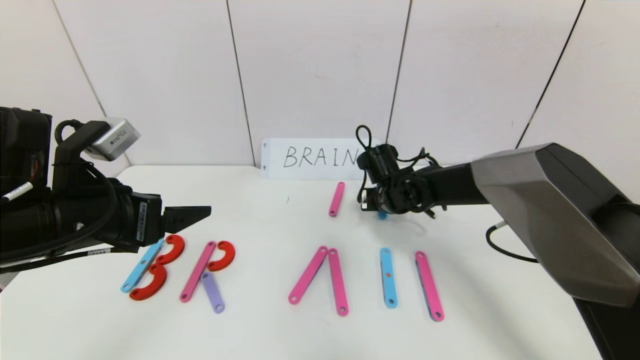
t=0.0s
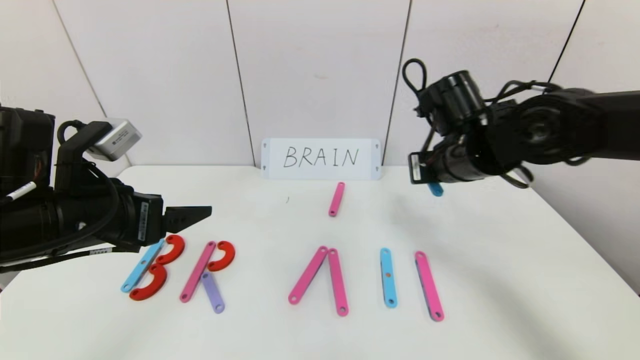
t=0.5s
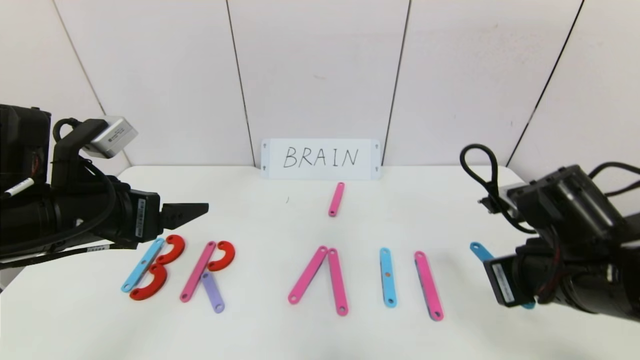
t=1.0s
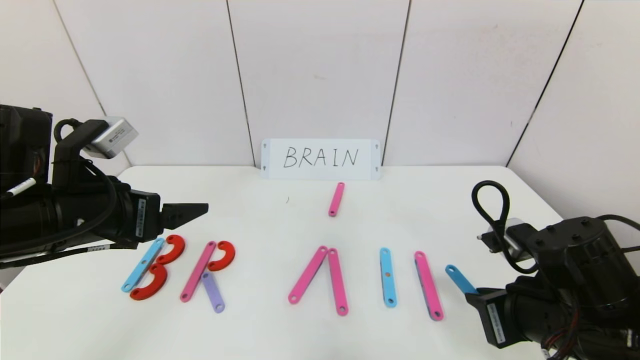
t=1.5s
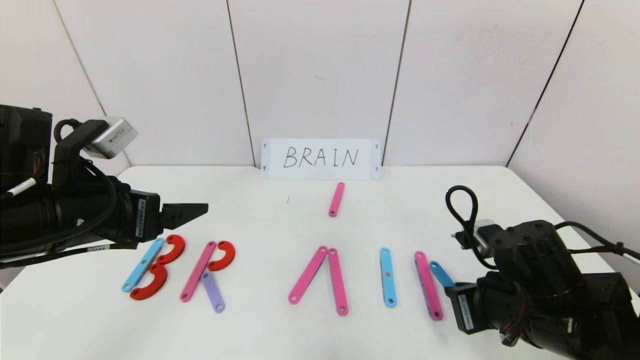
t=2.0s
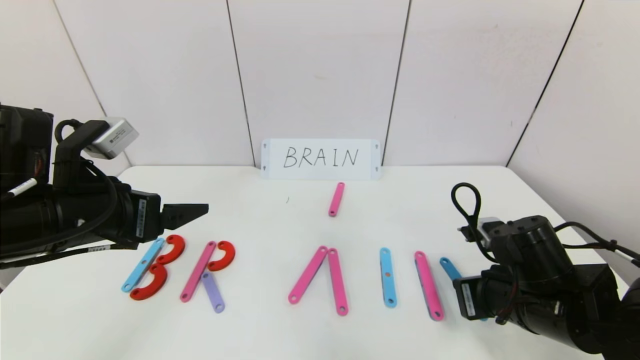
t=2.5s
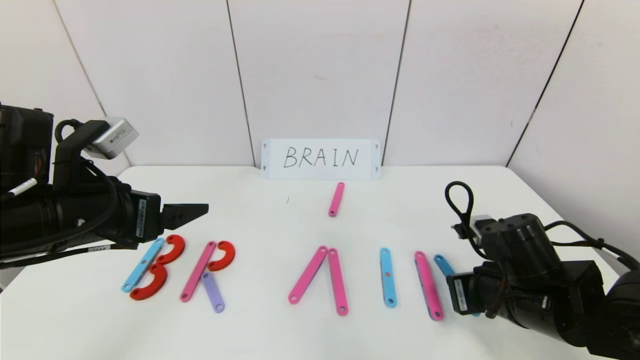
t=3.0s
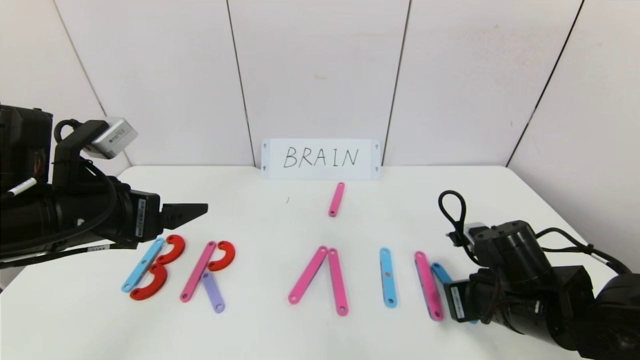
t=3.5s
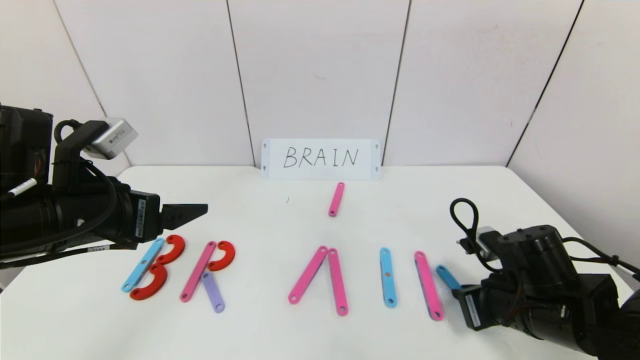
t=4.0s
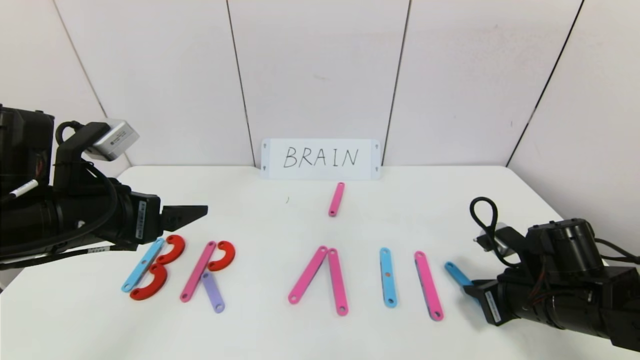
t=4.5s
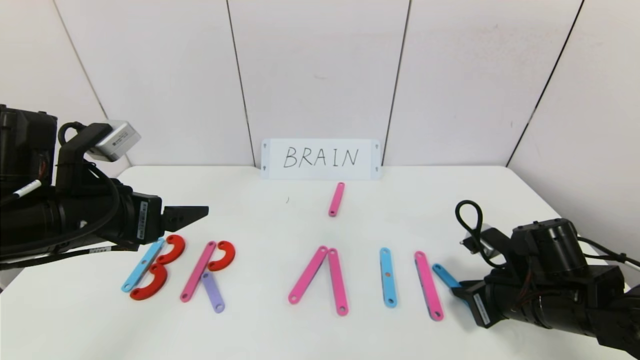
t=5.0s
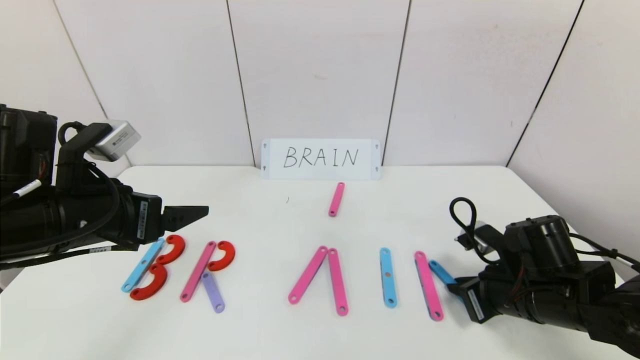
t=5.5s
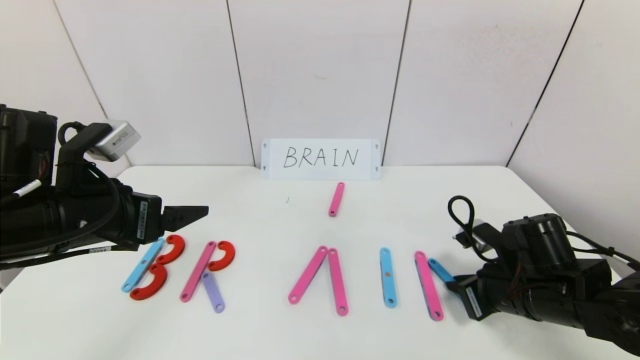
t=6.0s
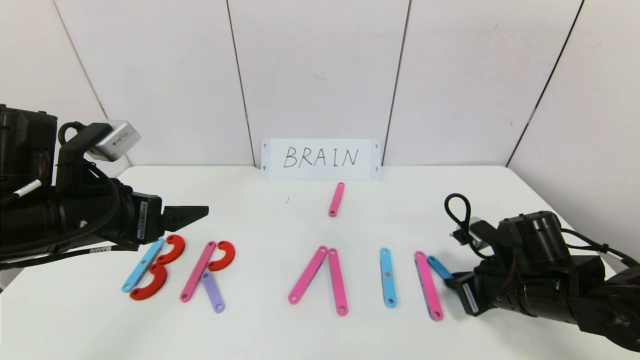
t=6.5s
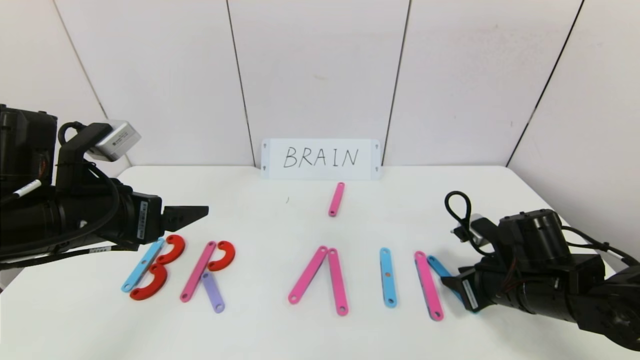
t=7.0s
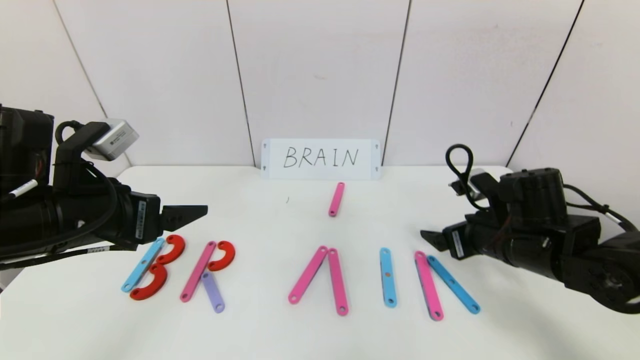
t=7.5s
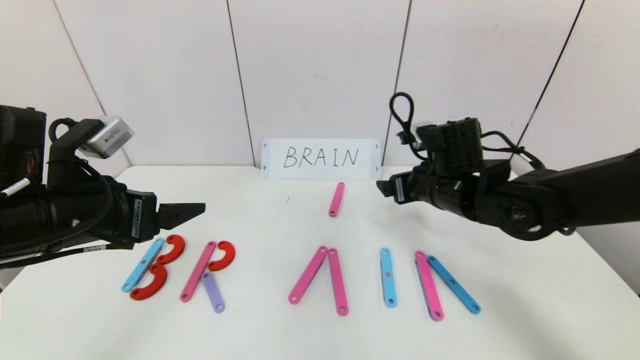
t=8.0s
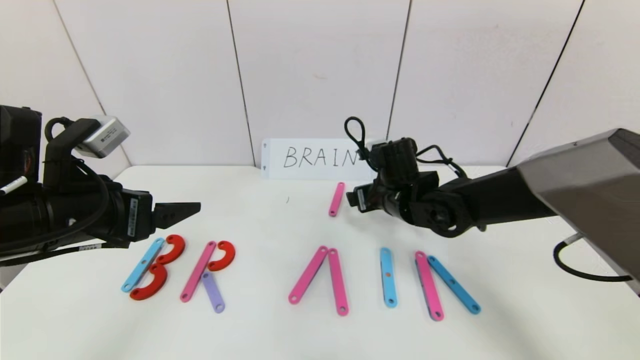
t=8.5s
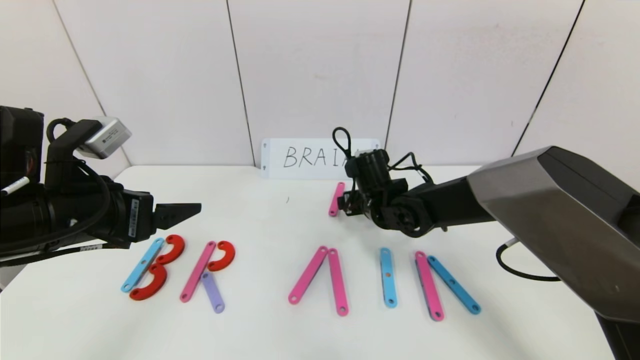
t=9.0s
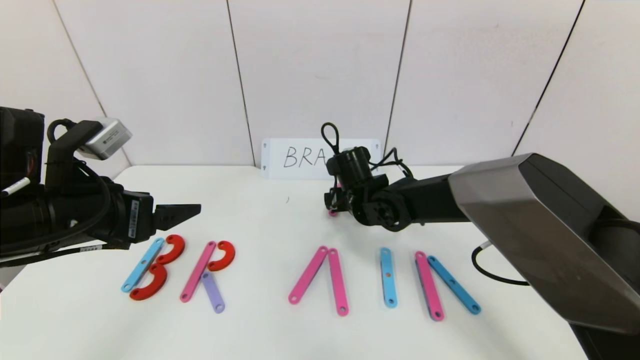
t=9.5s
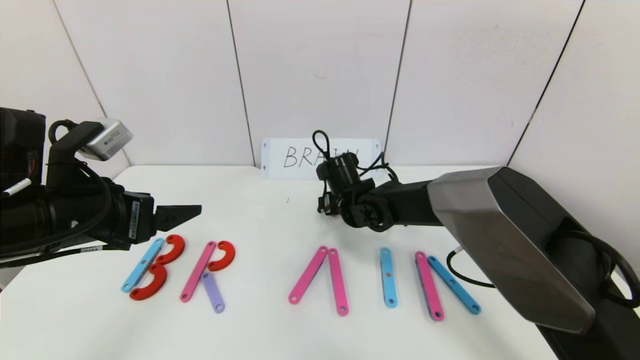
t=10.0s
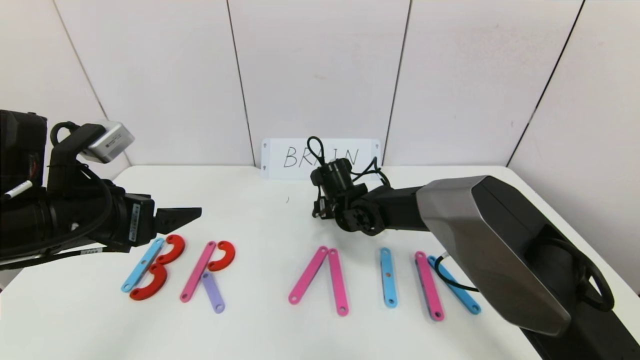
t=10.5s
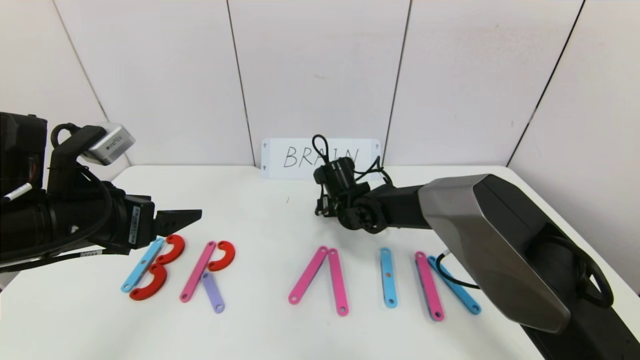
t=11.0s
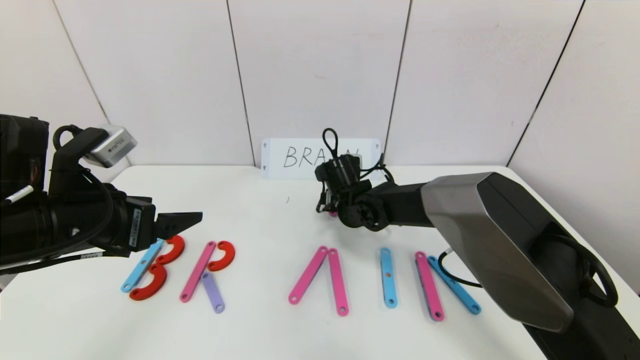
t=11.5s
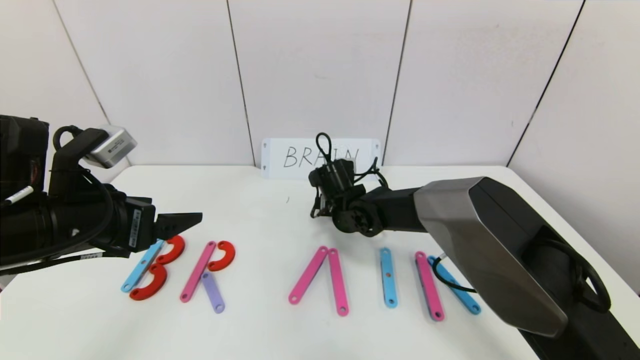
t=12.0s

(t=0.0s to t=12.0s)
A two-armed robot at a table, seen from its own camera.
Task of the whole recording: rearrange the word baai as brain.
t=0.0s - t=2.0s: The right gripper heads backward and to the right, covering roughly 25 cm.
t=2.0s - t=4.0s: The grippers make only small movements.
t=4.0s - t=6.0s: The grippers stay close to where they were, moving slightly.
t=6.0s - t=8.0s: The right gripper travels forward, to the left and upward by roughly 15 cm, and opens up.
t=8.0s - t=10.0s: The right gripper is displaced to the left, downward and forward by some 15 cm.
t=10.0s - t=12.0s: The grippers move only a little.

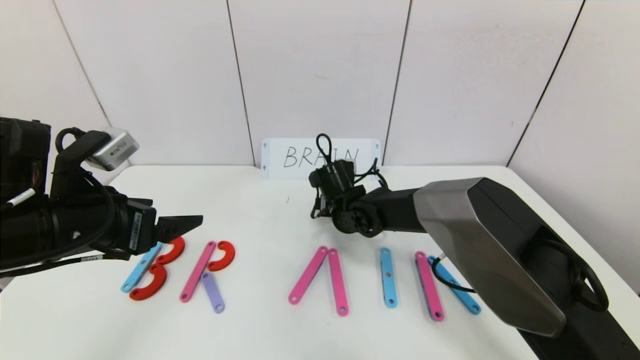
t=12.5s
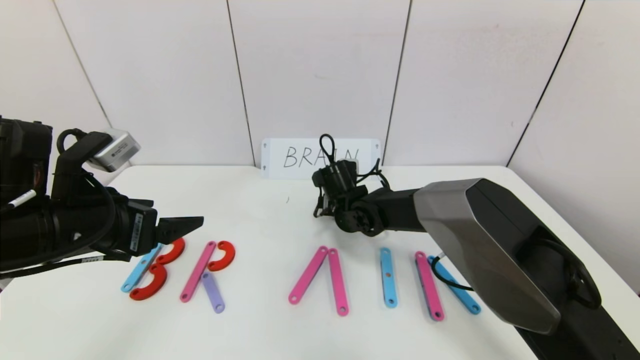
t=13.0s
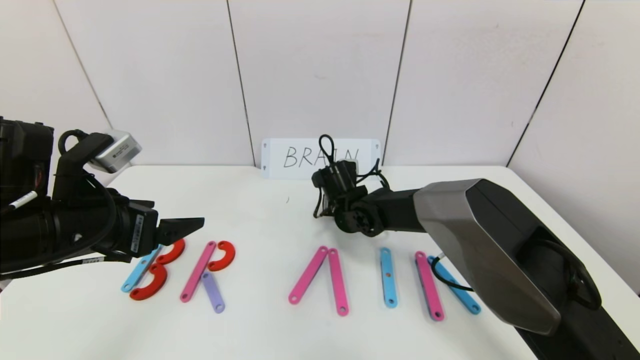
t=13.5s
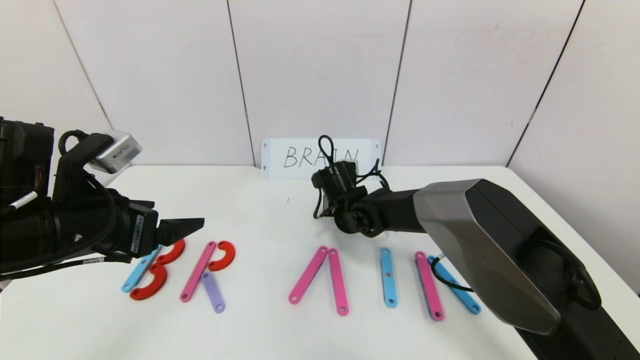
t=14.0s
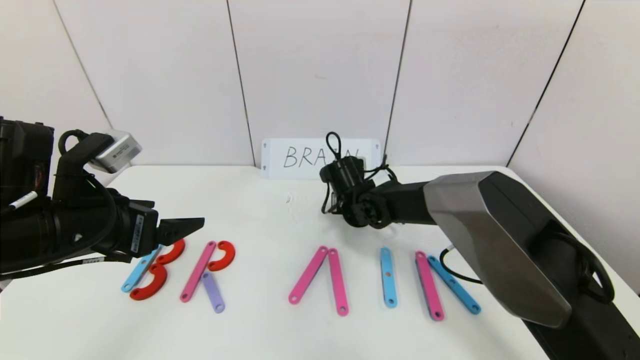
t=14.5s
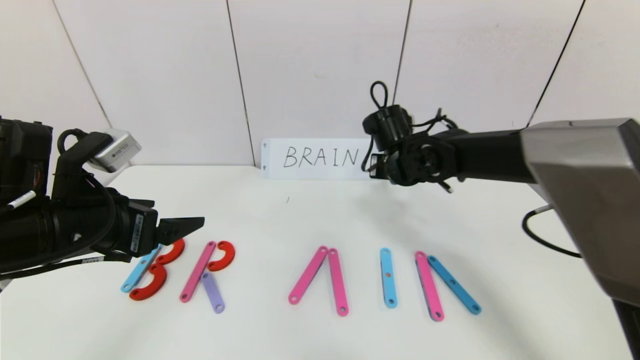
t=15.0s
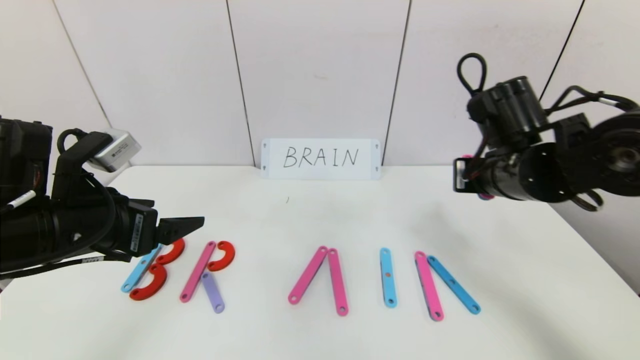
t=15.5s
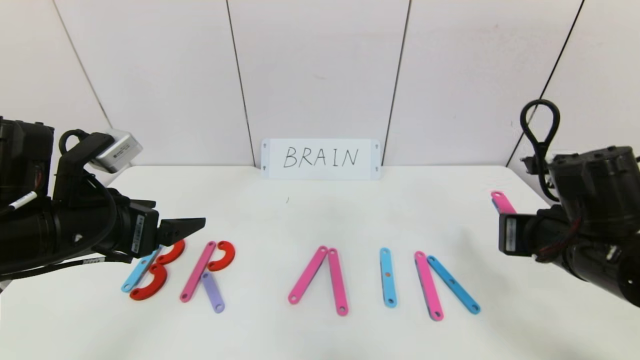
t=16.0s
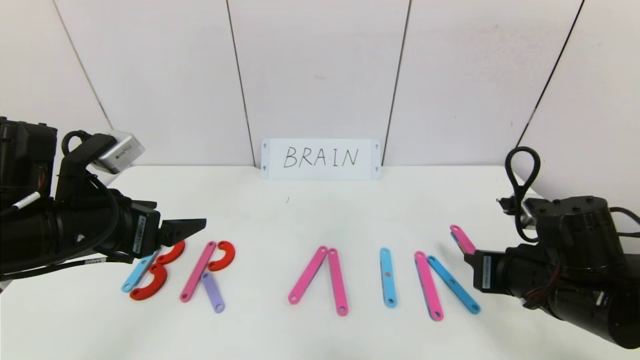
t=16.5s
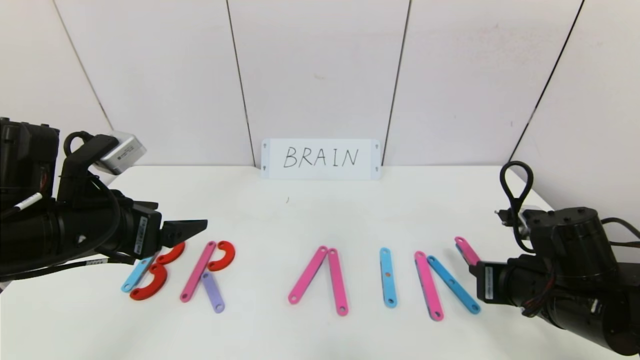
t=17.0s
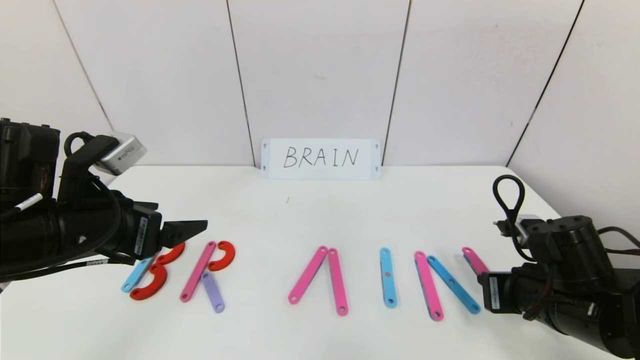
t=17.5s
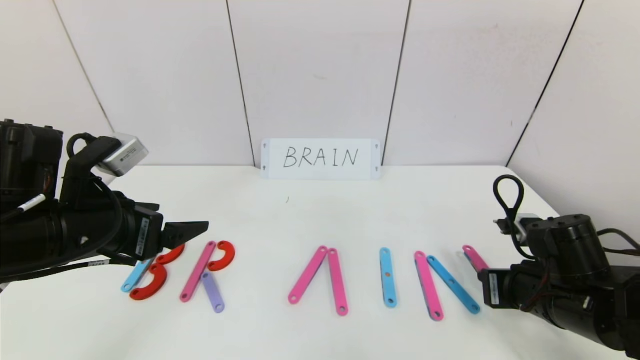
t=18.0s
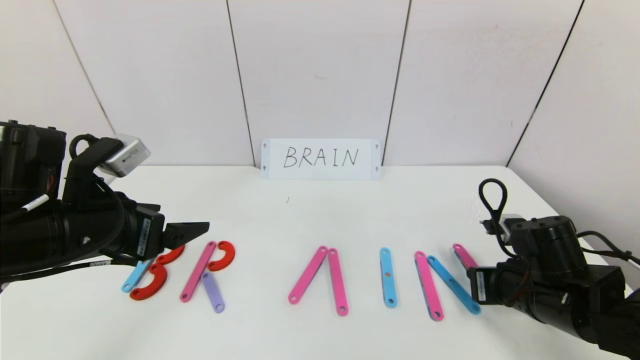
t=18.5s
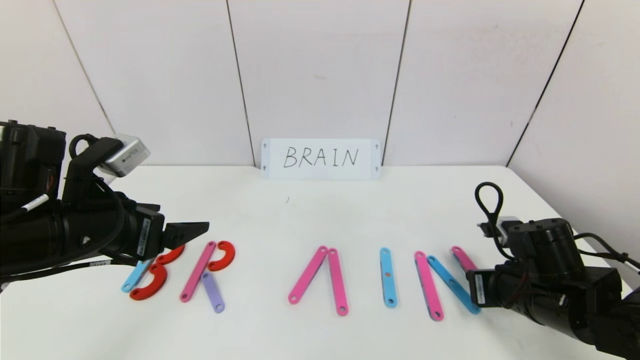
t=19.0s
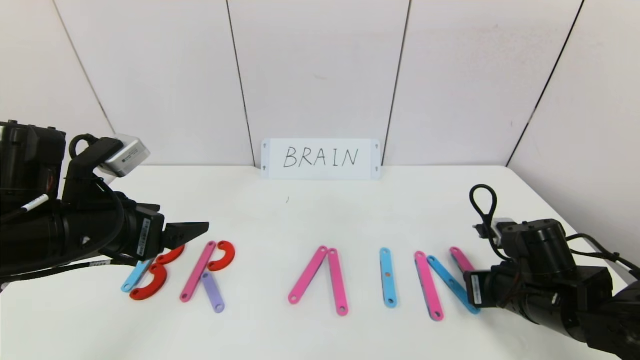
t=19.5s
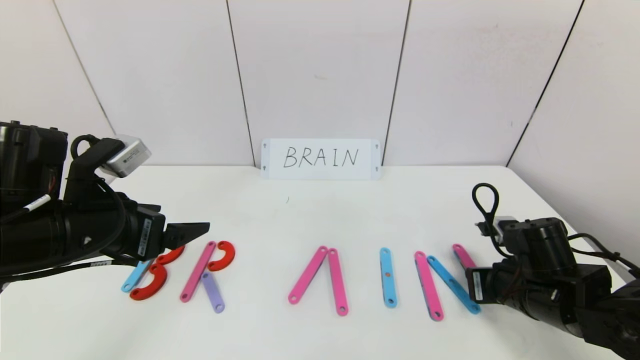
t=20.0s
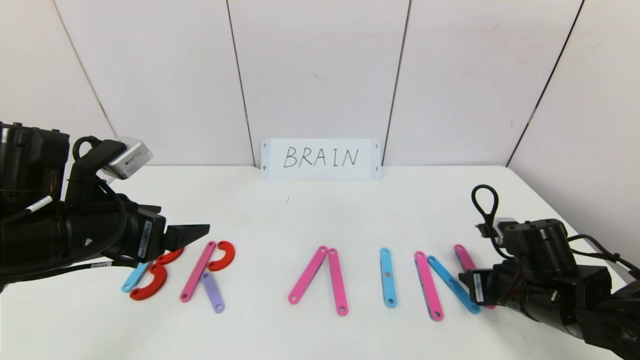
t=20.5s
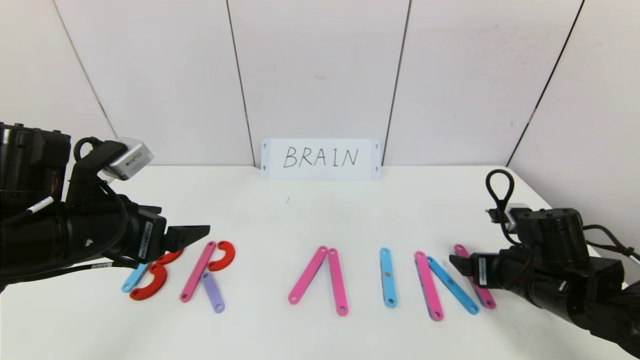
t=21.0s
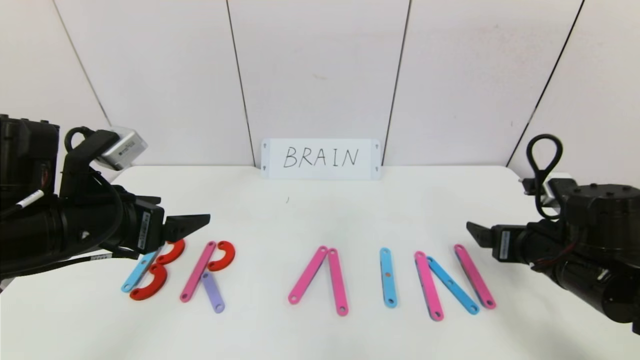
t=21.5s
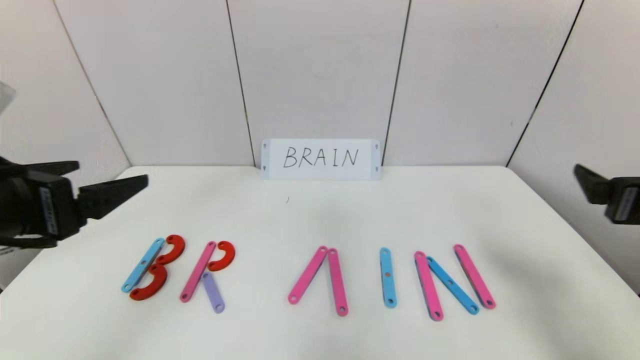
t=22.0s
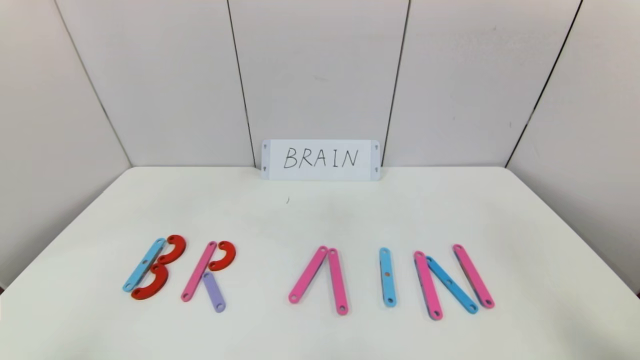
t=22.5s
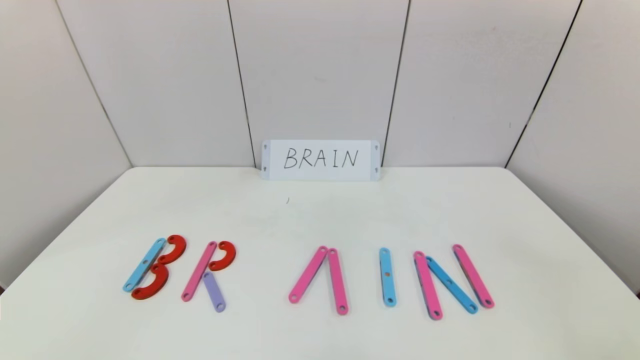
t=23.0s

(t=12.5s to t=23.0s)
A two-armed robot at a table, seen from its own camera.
Task of the whole recording: rearrange the word baai as brain.
Step, t=12.5s - t=20.5s: Place the character N after character I.
t=12.5s - t=14.5s: The right gripper closes up.
t=14.5s - t=16.5s: The right gripper is displaced backward and to the right by some 30 cm.
t=16.5s - t=19.0s: The right gripper travels downward by about 5 cm.
t=19.0s - t=21.0s: The right gripper opens its fingers.
t=21.0s - t=23.0s: The left gripper heads backward, covering roughly 30 cm. Meanwhile the right gripper heads backward and upward, covering some 35 cm.
